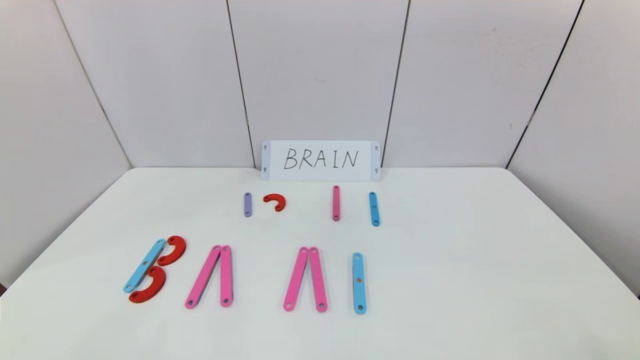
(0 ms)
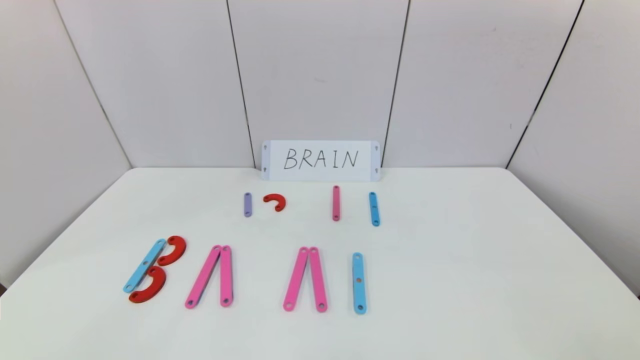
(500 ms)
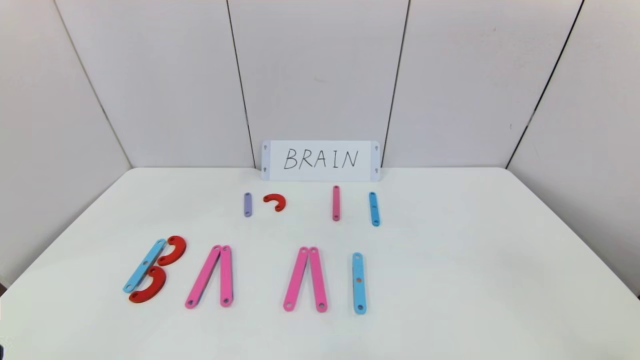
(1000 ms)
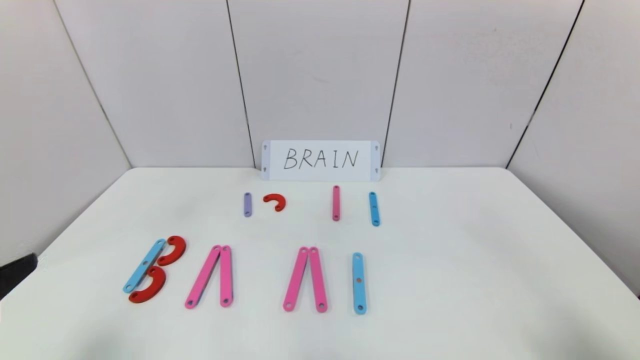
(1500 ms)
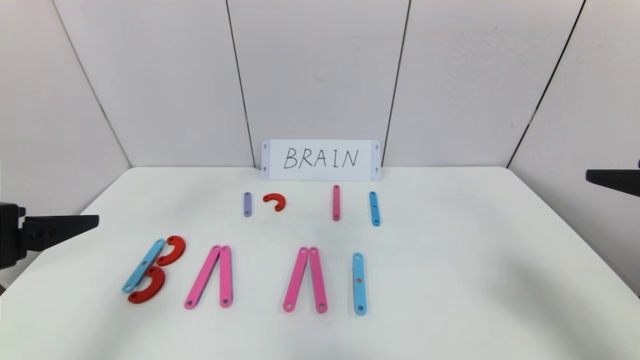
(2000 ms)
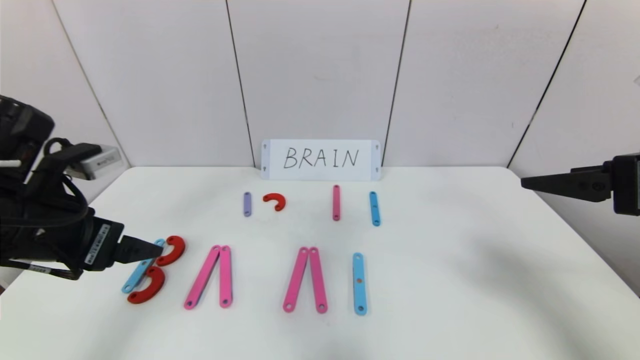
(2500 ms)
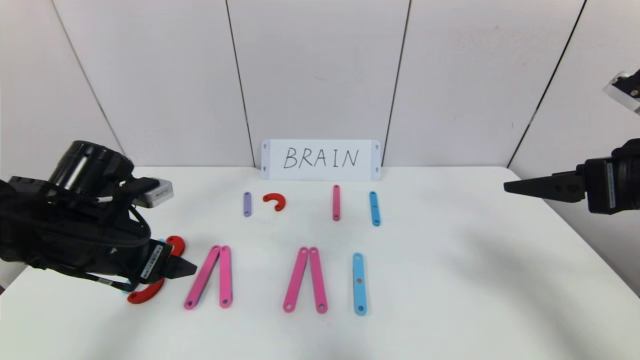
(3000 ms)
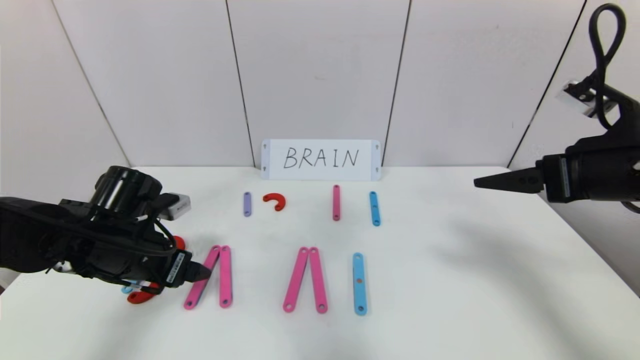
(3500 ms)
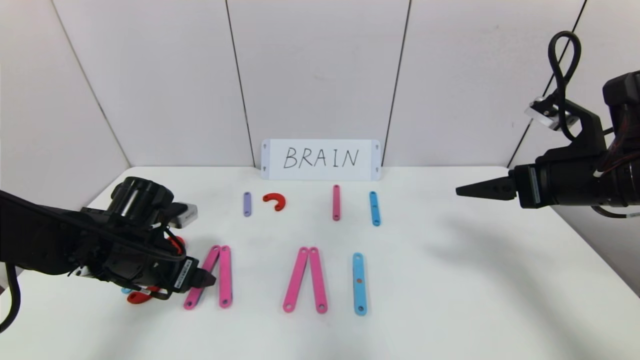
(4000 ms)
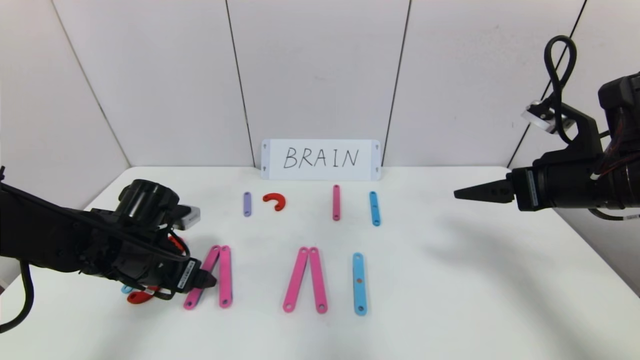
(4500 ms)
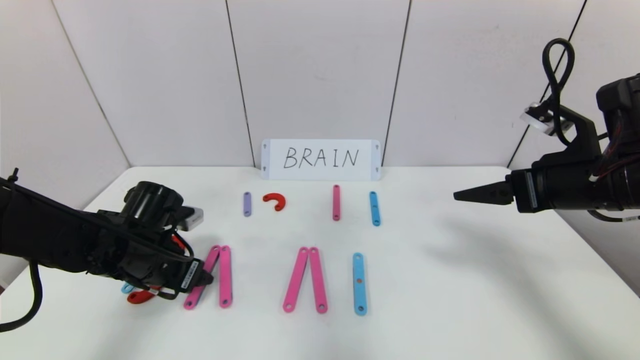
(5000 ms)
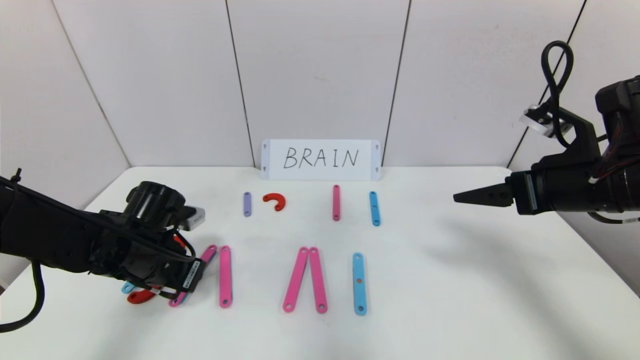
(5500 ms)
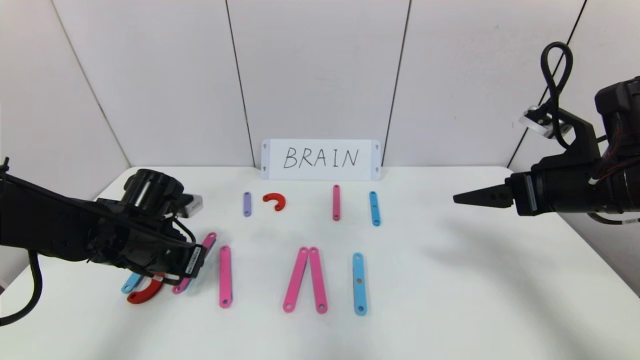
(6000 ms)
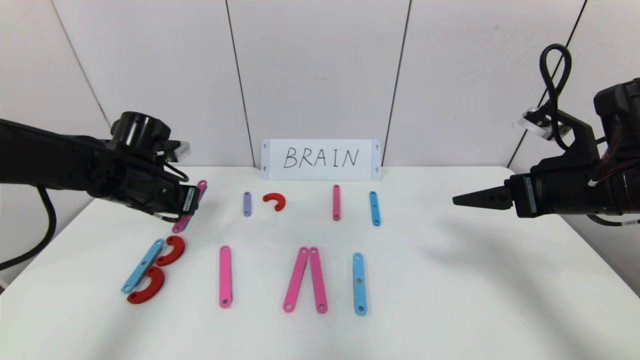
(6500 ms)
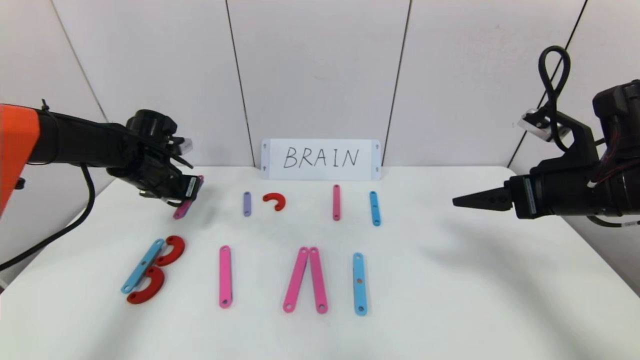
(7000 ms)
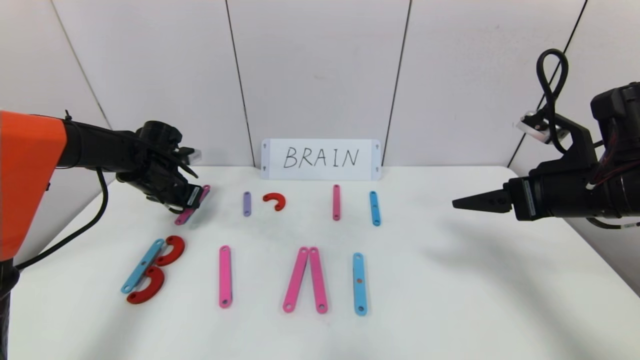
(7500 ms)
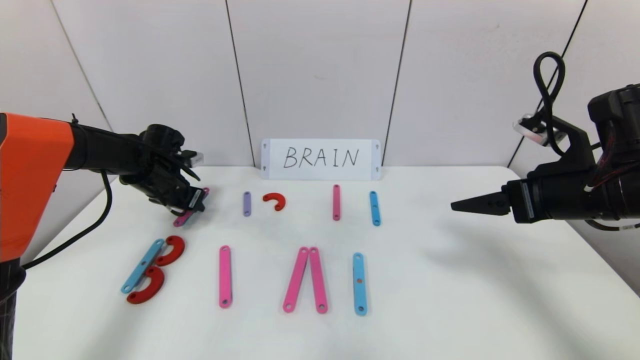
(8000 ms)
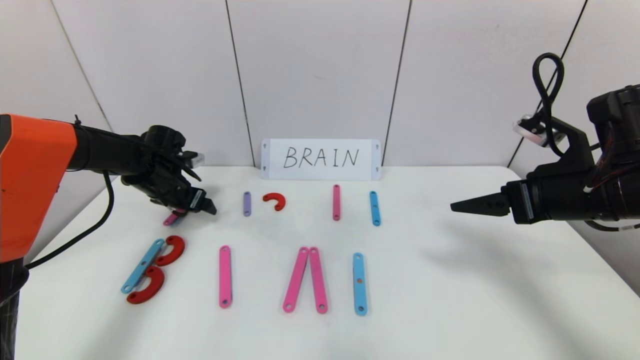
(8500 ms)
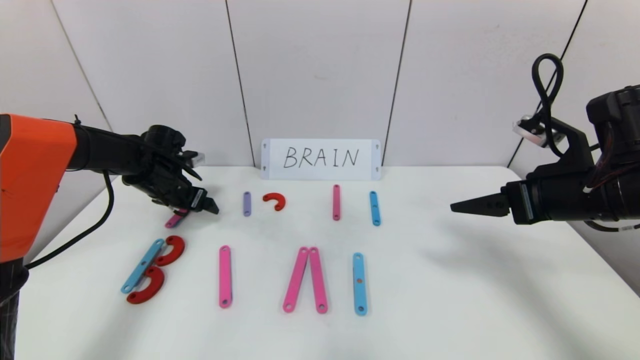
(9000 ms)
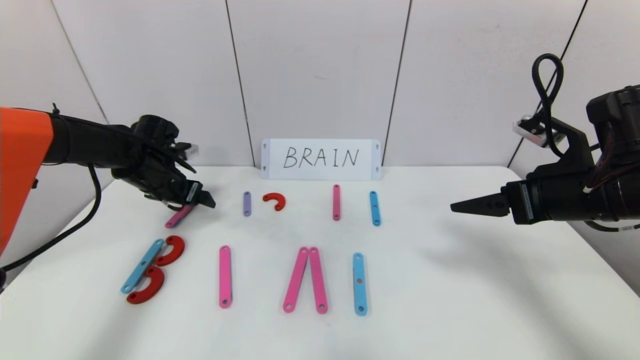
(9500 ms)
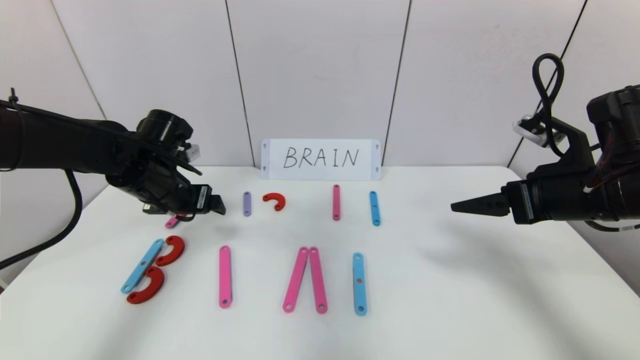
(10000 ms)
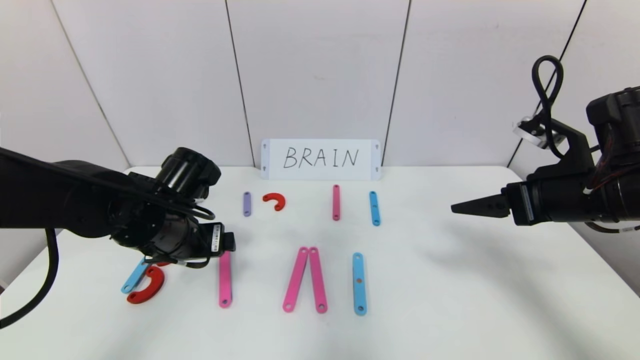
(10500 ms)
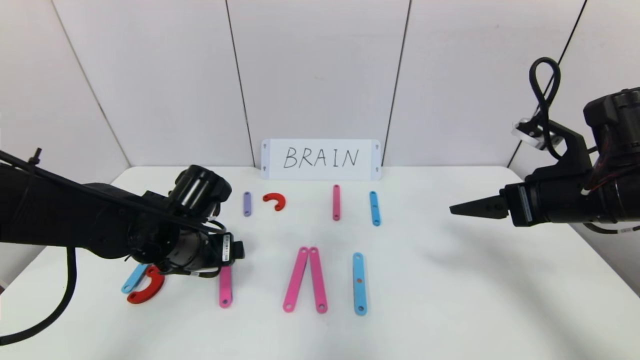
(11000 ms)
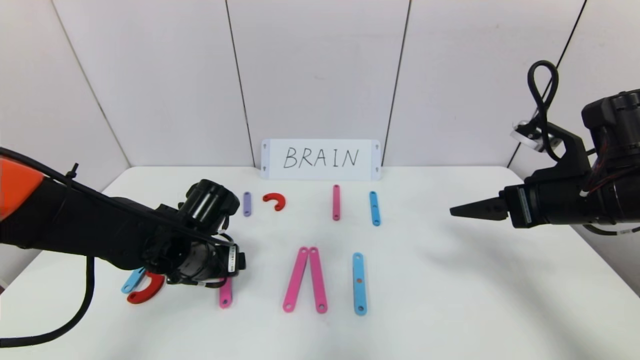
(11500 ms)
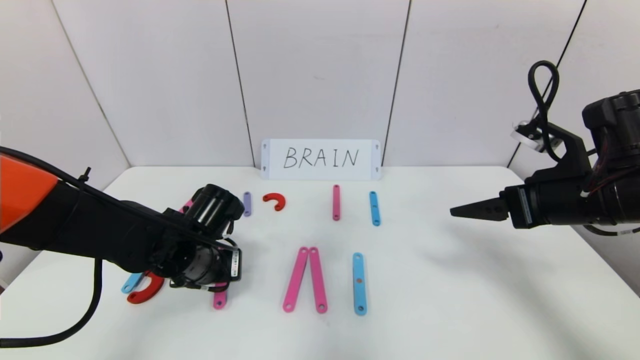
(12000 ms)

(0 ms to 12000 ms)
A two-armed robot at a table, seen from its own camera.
Task of the whole recording: rearrange the word baai as brain.
0 ms - 2000 ms: Both grippers travel together upward and forward, about 25 cm.
2000 ms - 4000 ms: The left gripper moves downward and forward, about 20 cm; the right gripper moves forward and downward, about 15 cm.
4000 ms - 6000 ms: The left gripper closes up.
6000 ms - 8000 ms: The left gripper travels forward by approximately 15 cm.
8000 ms - 10000 ms: The left gripper moves backward, to the right and upward, about 10 cm, and opens.
10000 ms - 12000 ms: The left gripper is displaced downward, backward and to the right by roughly 10 cm, and closes its fingers.

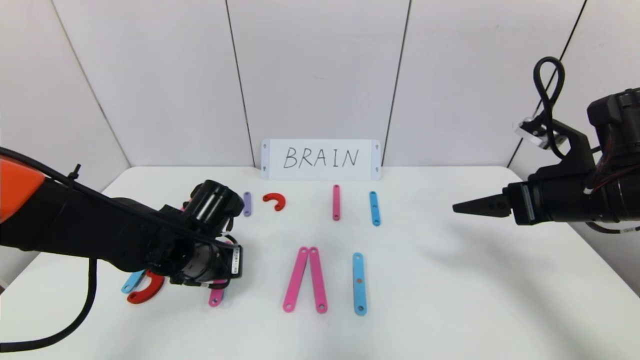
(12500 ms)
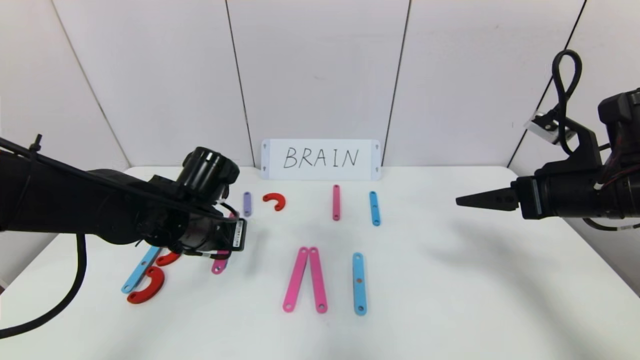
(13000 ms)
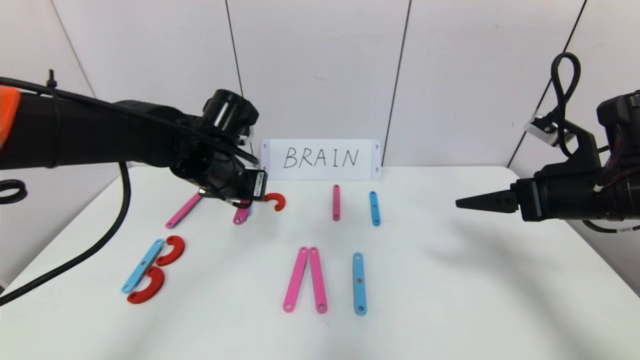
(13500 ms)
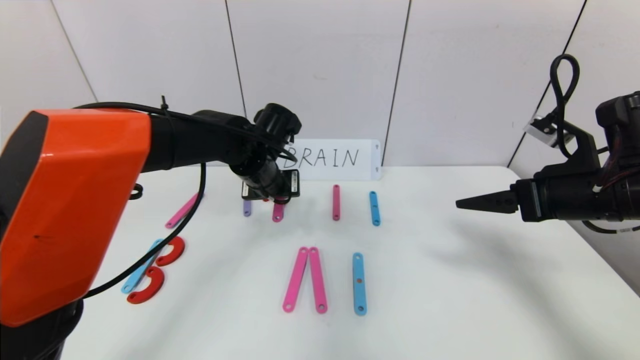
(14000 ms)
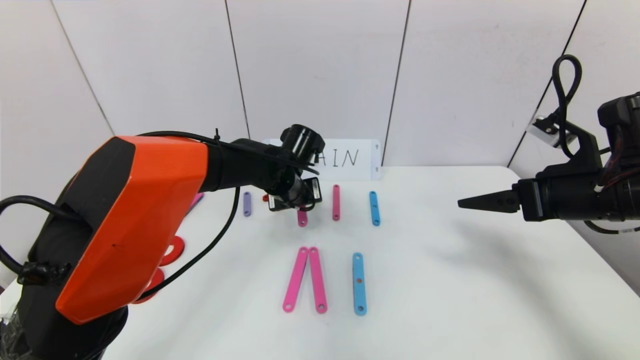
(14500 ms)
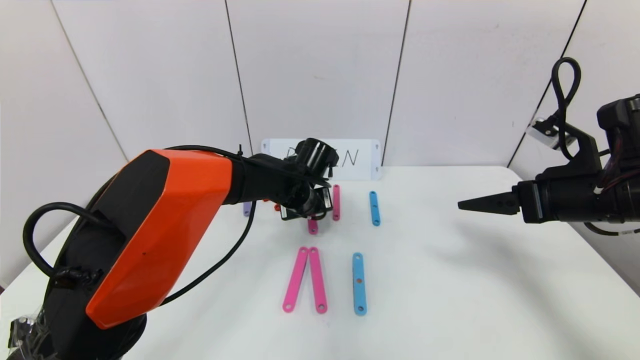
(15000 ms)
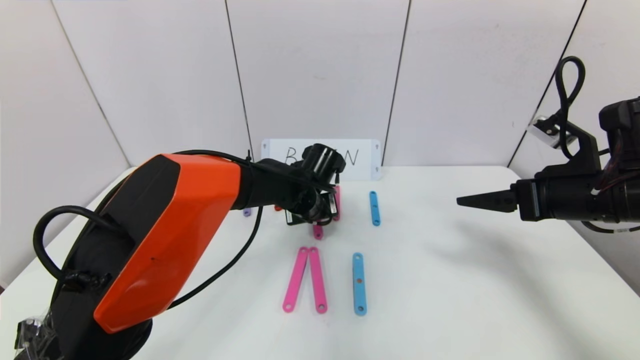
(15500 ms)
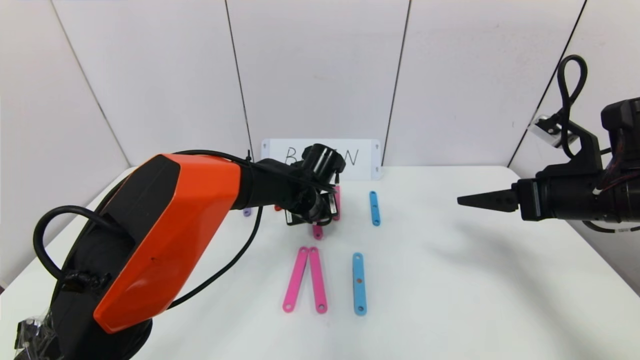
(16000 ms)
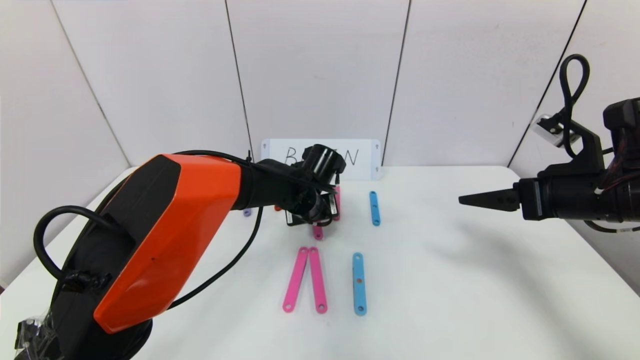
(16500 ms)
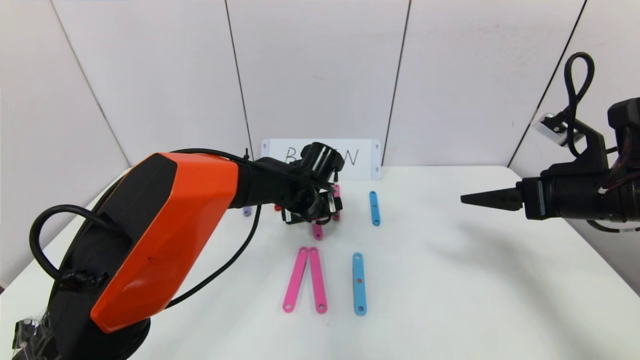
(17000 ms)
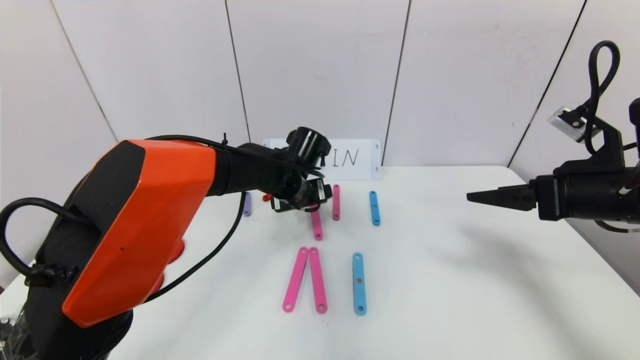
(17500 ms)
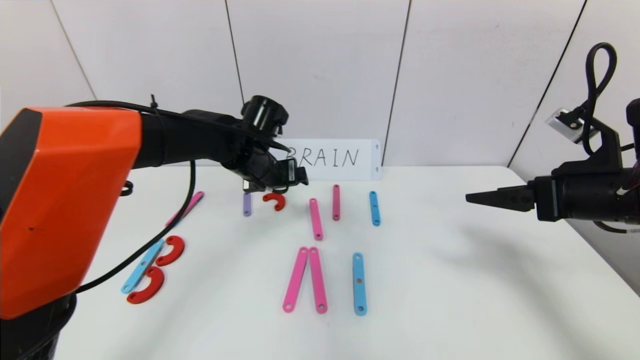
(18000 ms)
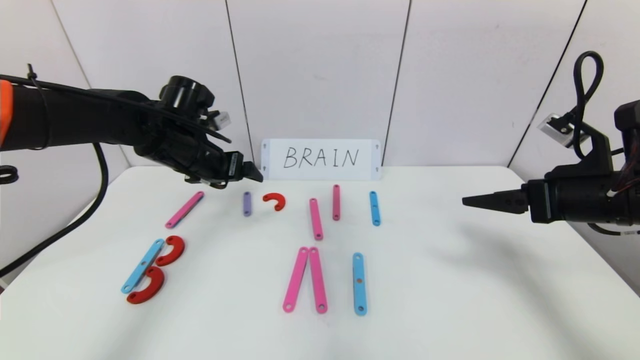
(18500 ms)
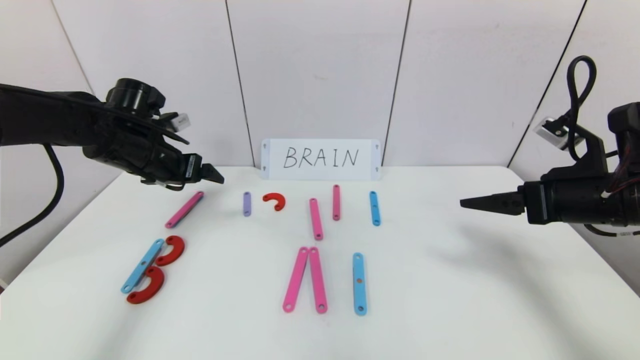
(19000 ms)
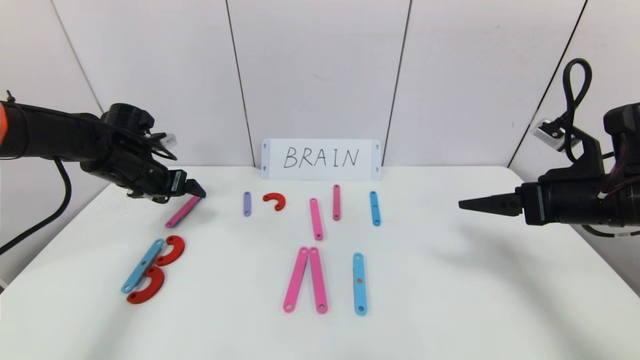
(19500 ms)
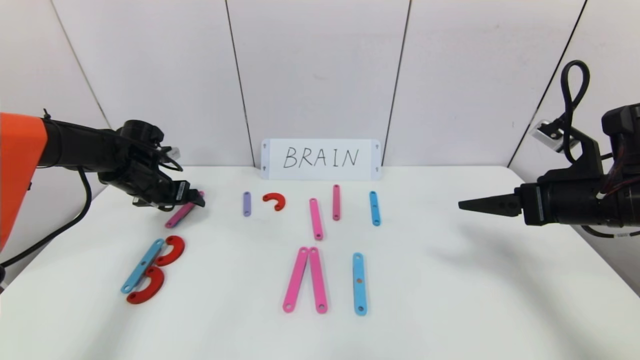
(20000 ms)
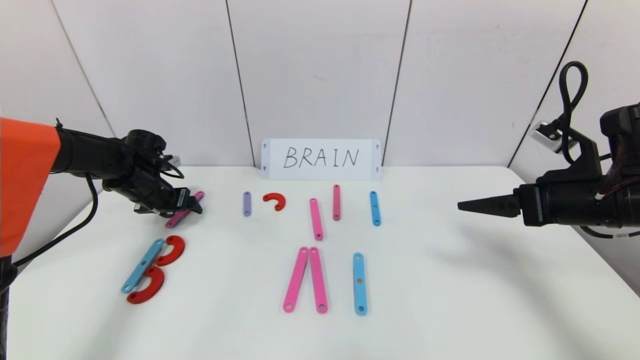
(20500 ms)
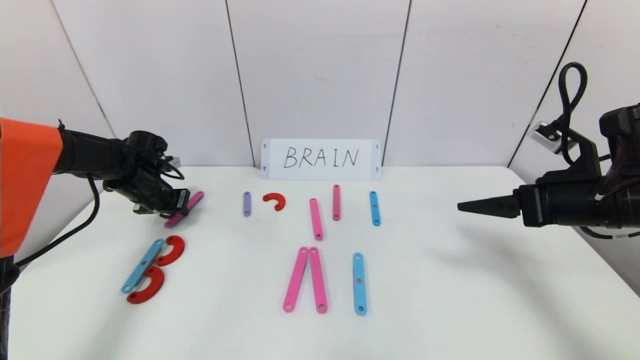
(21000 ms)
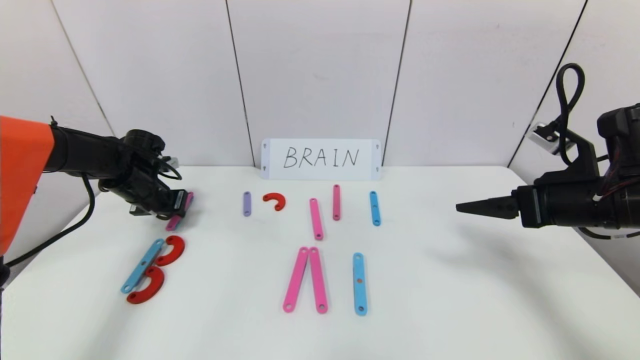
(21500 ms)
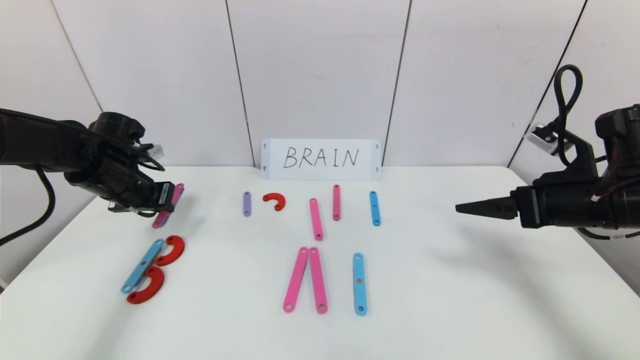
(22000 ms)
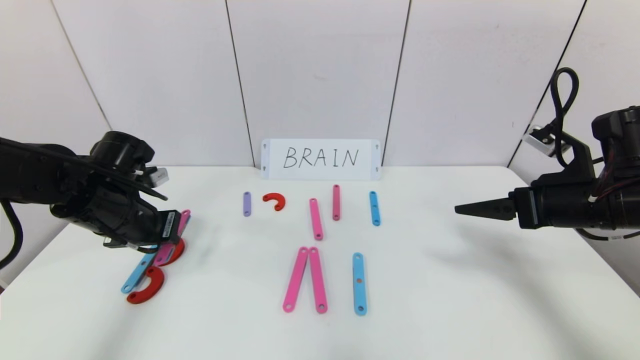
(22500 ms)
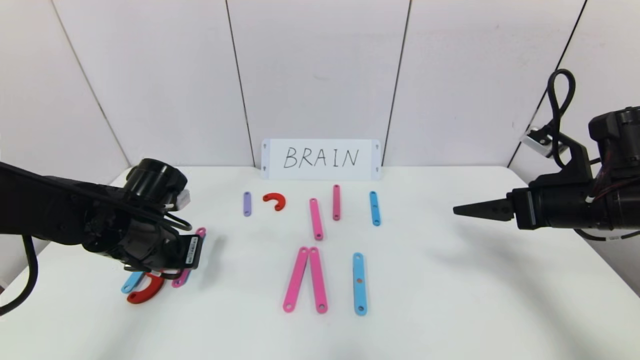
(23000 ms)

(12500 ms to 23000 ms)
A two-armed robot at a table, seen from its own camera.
Task of the whole recording: rearrange the word baai as brain.
Step, 12500 ms - 16500 ms: Disassemble the second character A.
12500 ms - 14500 ms: The left gripper shifts roughly 20 cm forward and to the right.
14500 ms - 16500 ms: The left gripper opens its fingers.
16500 ms - 19000 ms: The left gripper moves to the left, some 25 cm, and opens up.
19000 ms - 21000 ms: The left gripper moves downward, forward and to the left, approximately 15 cm, and closes.
21000 ms - 23000 ms: The left gripper moves backward and to the right, roughly 20 cm.
